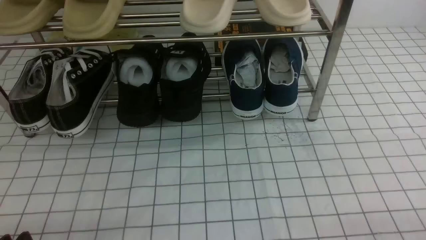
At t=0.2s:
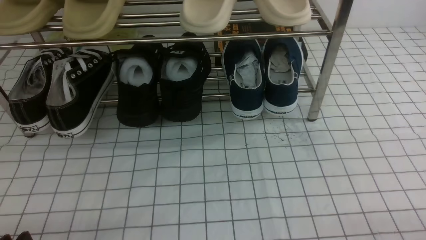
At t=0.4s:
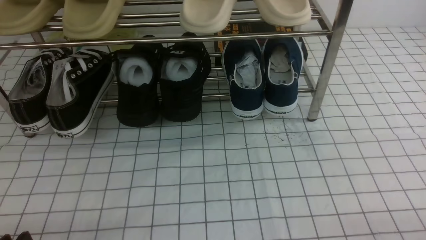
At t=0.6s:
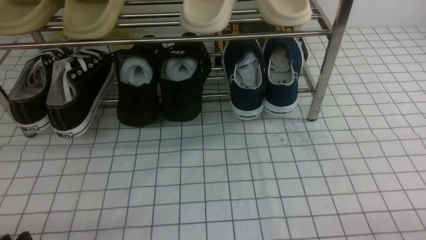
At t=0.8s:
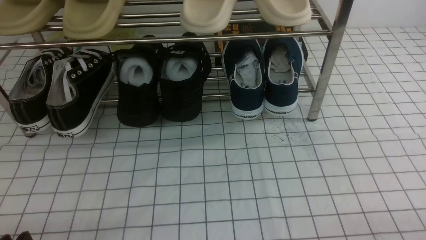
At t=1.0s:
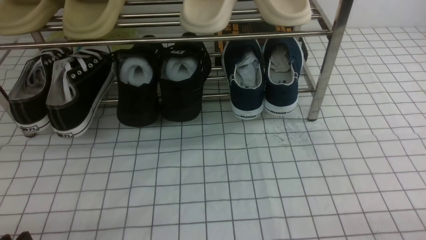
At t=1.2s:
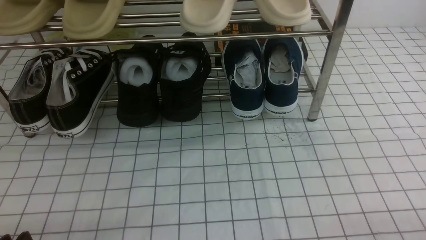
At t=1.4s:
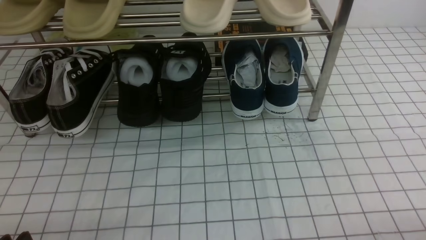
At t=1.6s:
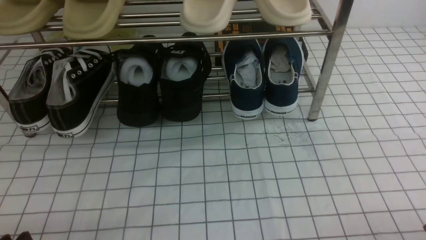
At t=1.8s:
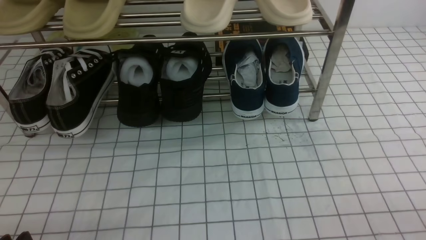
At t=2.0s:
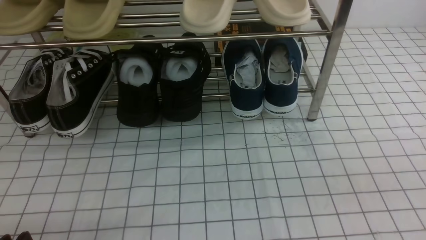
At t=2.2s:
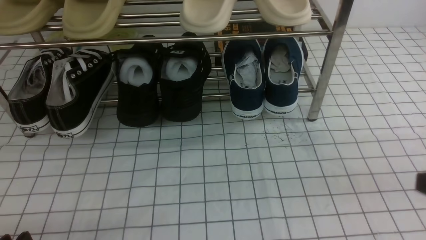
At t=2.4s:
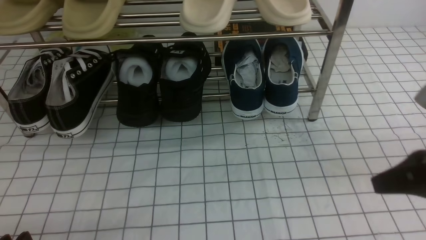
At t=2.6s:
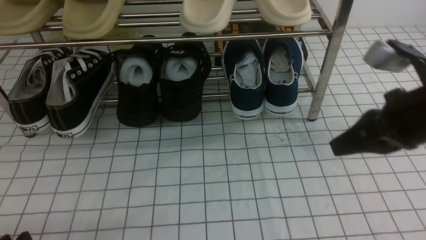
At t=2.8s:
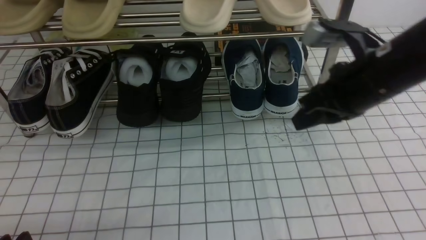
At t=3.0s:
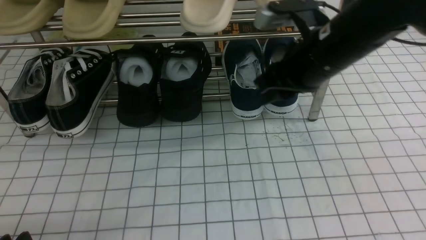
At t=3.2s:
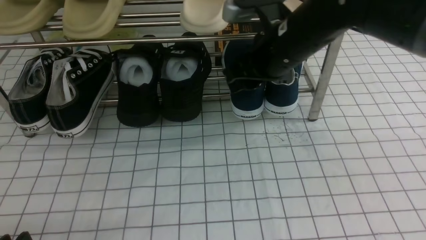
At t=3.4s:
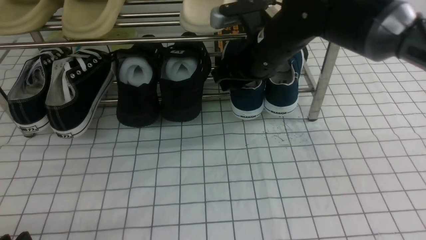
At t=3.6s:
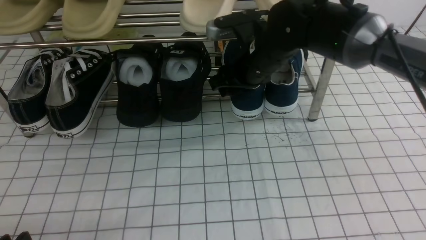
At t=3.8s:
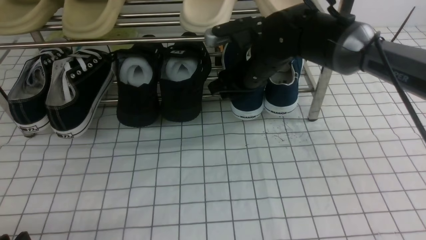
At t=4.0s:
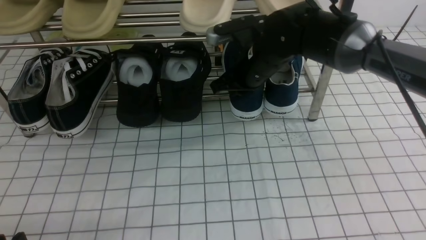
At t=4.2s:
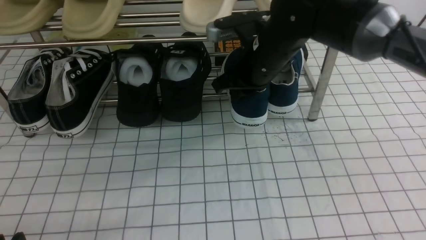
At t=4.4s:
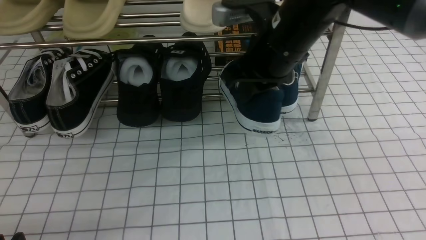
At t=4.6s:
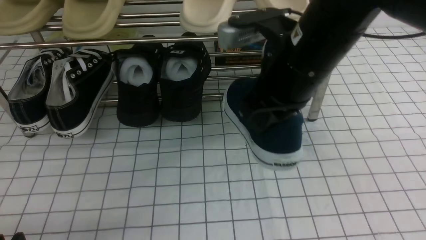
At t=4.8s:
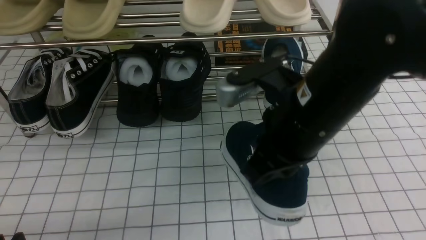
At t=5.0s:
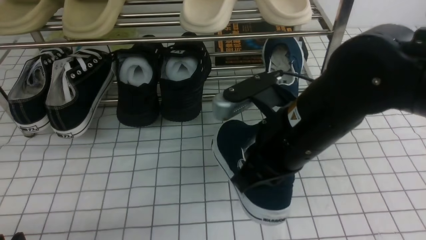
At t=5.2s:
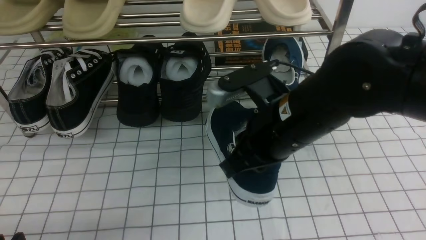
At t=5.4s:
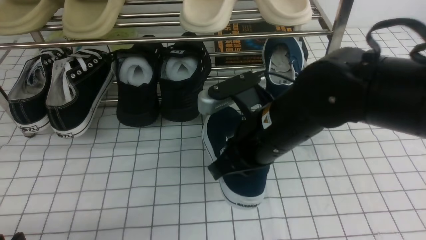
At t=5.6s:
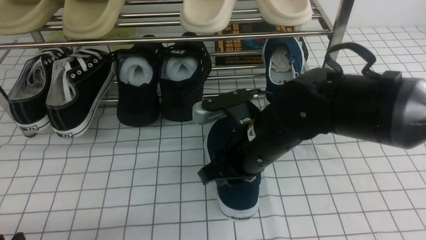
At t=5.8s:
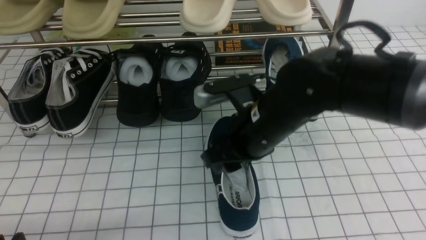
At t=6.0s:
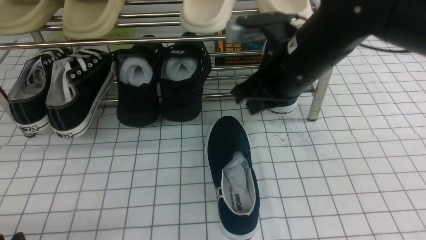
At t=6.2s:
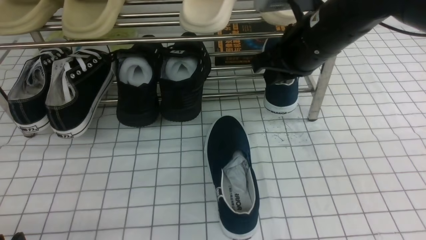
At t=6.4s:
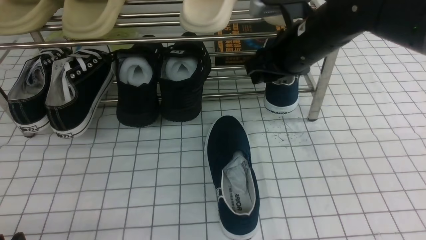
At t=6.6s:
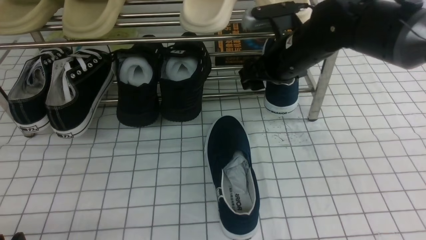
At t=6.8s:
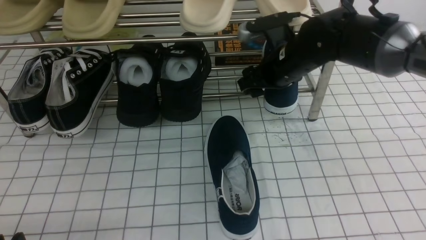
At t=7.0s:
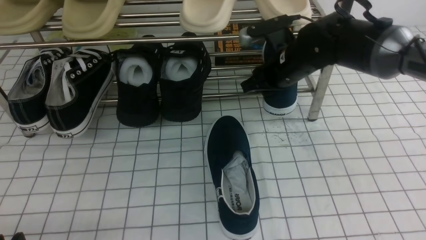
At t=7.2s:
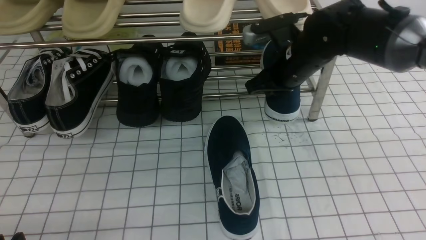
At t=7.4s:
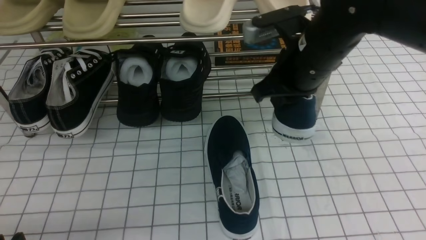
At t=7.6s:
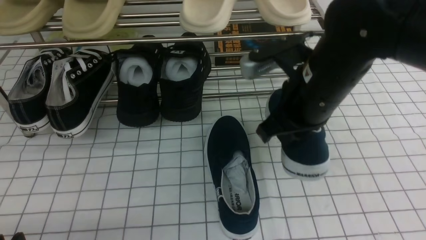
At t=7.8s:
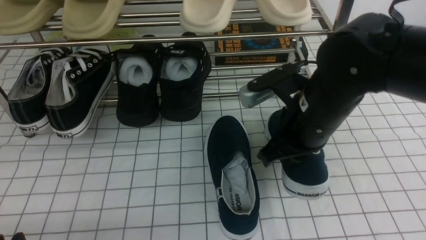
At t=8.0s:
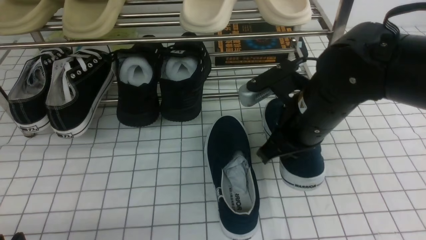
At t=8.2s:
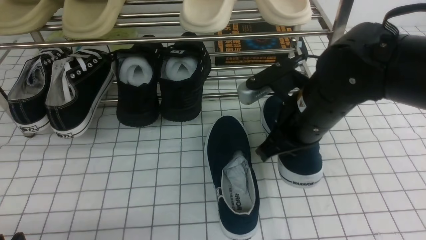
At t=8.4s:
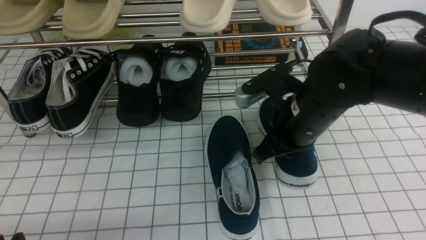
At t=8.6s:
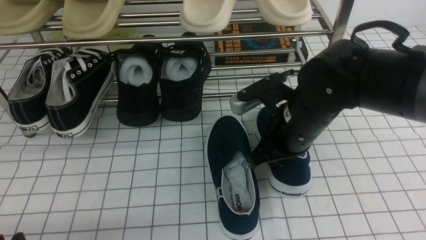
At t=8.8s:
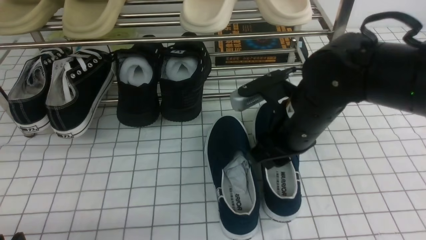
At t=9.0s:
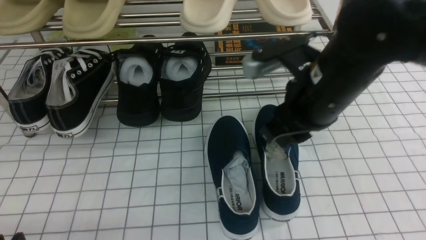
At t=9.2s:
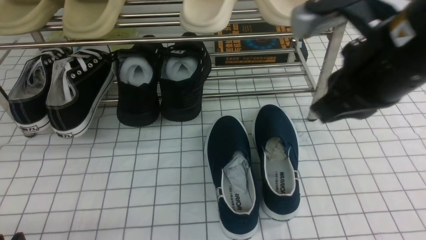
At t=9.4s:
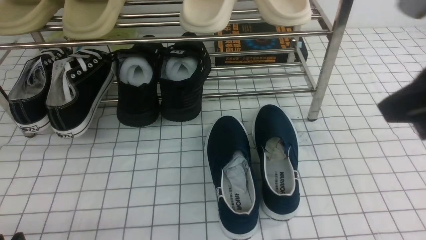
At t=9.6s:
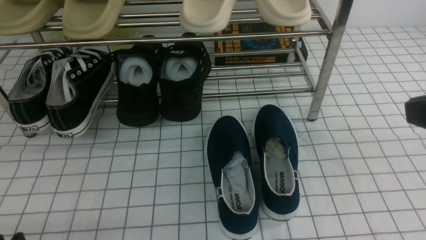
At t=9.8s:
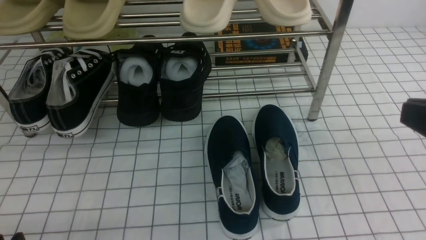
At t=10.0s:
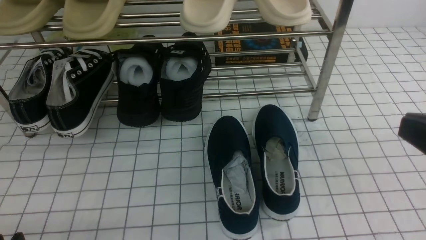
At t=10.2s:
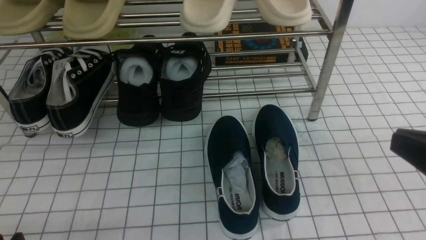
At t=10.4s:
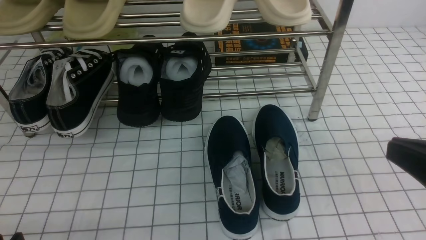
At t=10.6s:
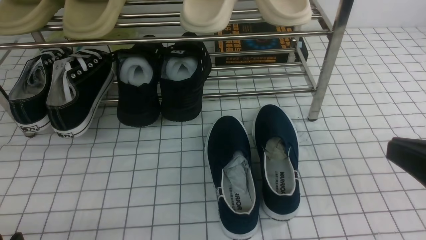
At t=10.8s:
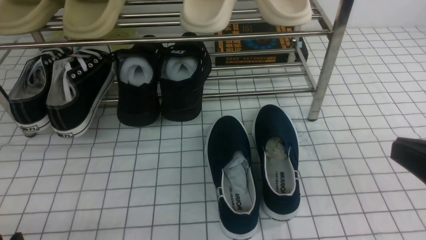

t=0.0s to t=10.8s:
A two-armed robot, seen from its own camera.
Step, t=0.0s to t=3.8s: use the right arm to clamp a shoe on the right side of the shoe rack.
Step, t=4.0s to t=5.8s: use the right arm to take out the clamped shoe from the shoe rack and put it down.
Step, t=6.0s to t=7.0s: use the right arm to clamp a shoe on the right side of the shoe rack.
Step, t=7.2s to t=9.0s: use the right arm to take out the clamped shoe from the shoe rack and put it down.
t=1.6s to t=3.0s: The right gripper goes about 35 cm forward, to the left and upward, and closes, then opens again.
t=3.0s to t=4.6s: The right gripper goes roughly 5 cm backward, and closes.
t=4.6s to t=6.2s: The right gripper travels forward by some 10 cm.
t=6.2s to t=7.8s: The right gripper moves backward, about 10 cm, and opens, then closes once more.
t=7.8s to t=9.2s: The right gripper moves upward, backward and to the right, approximately 15 cm, and opens and closes again.
t=9.2s to t=10.8s: The right gripper travels backward, to the right and downward by approximately 15 cm.

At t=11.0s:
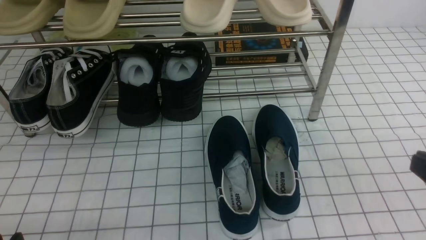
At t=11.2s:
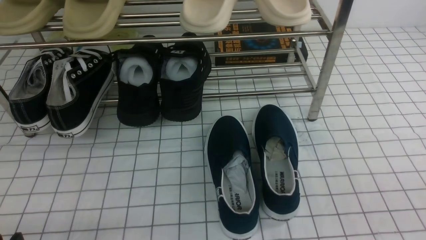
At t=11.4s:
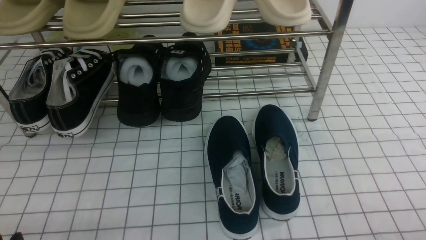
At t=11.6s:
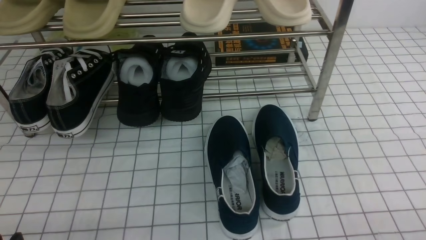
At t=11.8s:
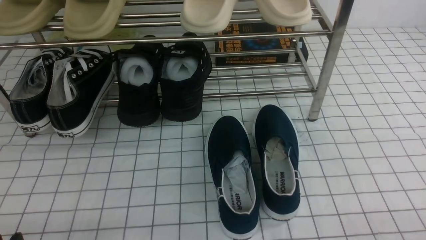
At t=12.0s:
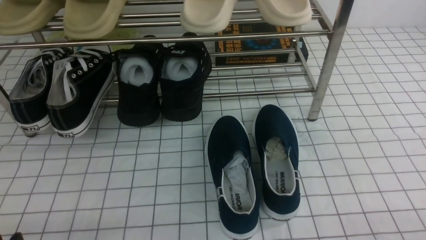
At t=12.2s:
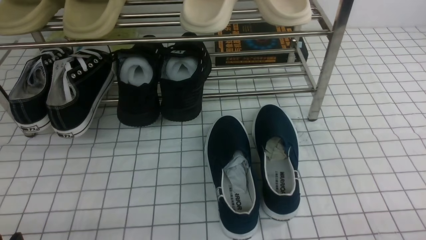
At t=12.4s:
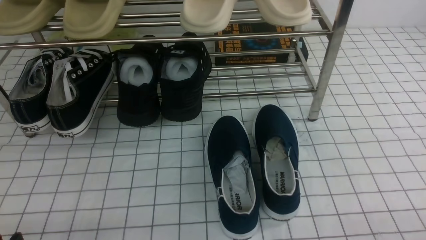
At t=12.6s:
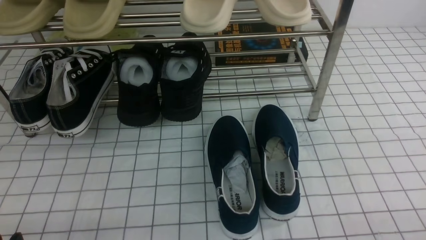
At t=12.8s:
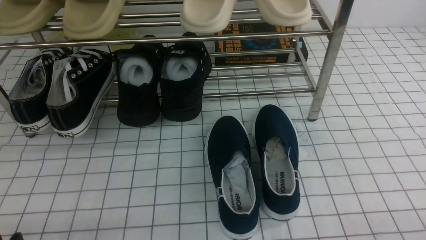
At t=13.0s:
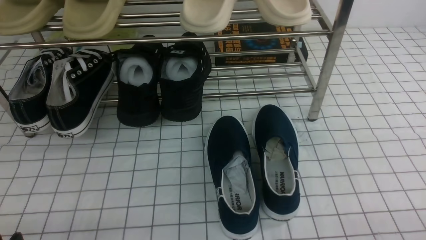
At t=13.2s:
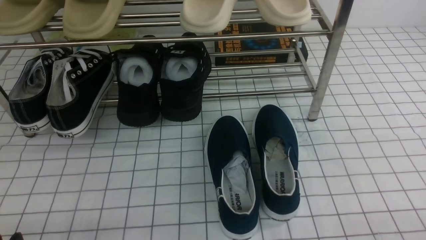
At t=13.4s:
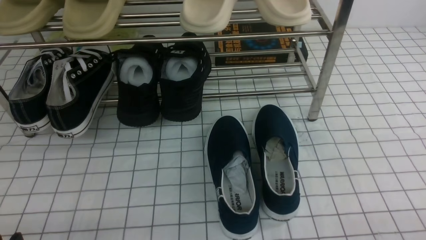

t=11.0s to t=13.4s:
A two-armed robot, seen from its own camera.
t=12.2s to t=13.4s: Both grippers stay about where they are.

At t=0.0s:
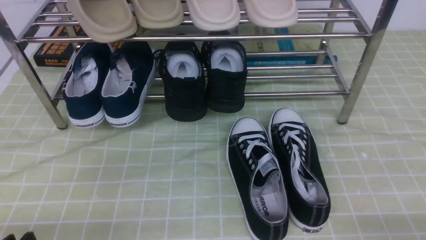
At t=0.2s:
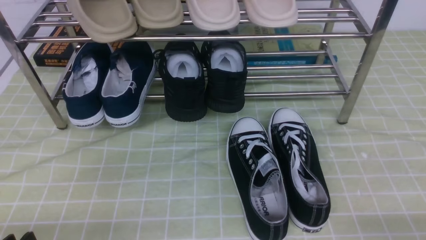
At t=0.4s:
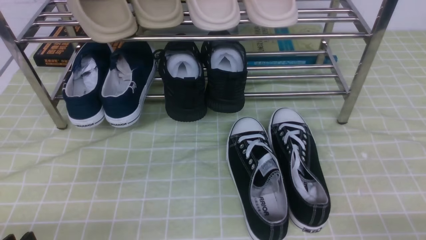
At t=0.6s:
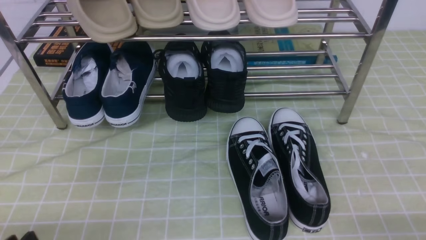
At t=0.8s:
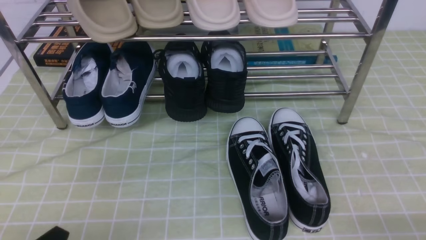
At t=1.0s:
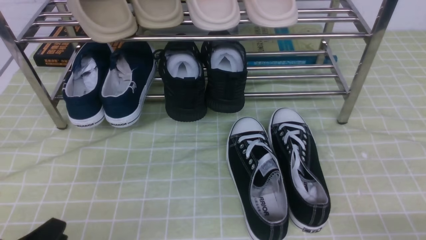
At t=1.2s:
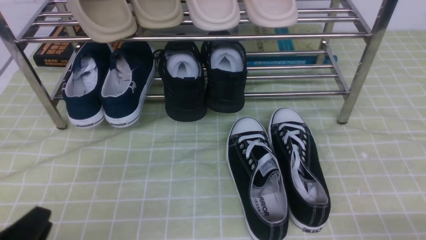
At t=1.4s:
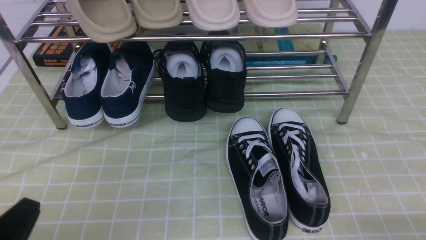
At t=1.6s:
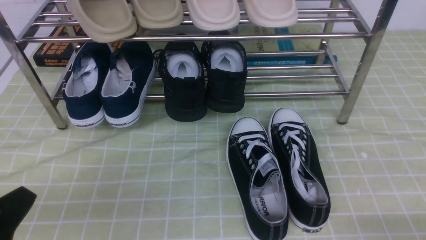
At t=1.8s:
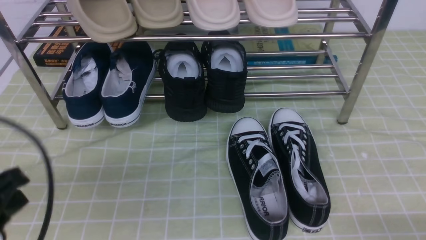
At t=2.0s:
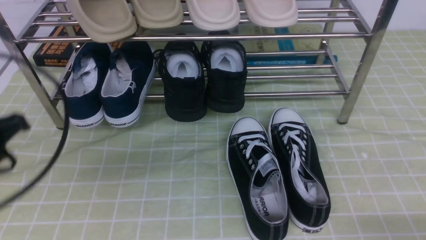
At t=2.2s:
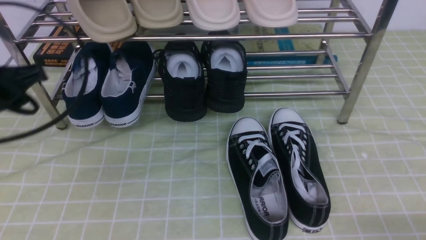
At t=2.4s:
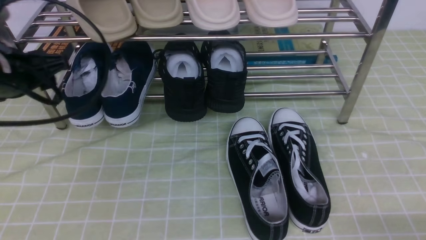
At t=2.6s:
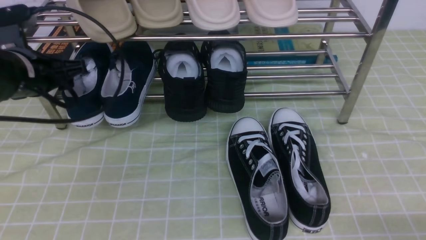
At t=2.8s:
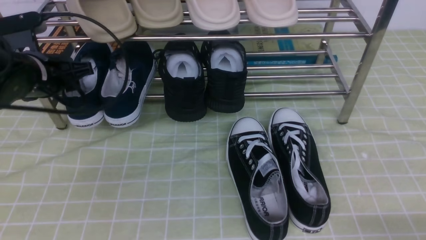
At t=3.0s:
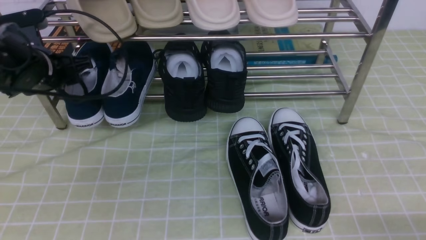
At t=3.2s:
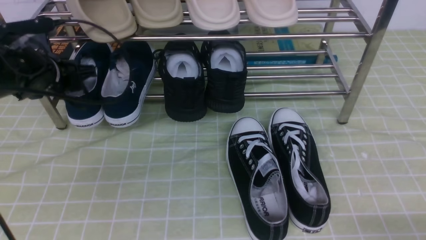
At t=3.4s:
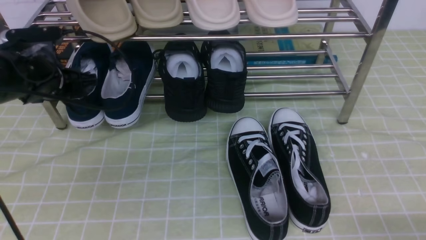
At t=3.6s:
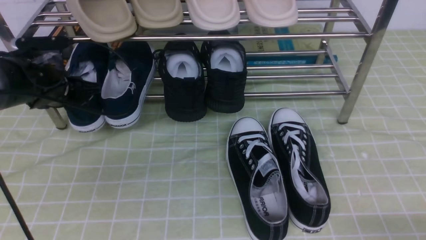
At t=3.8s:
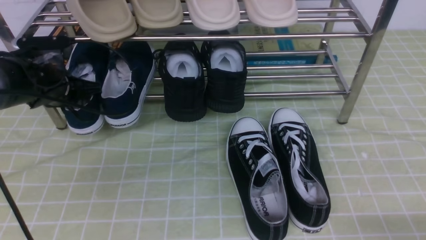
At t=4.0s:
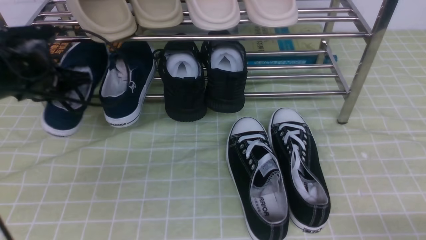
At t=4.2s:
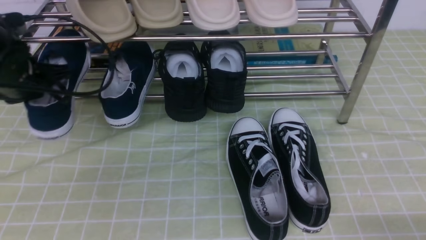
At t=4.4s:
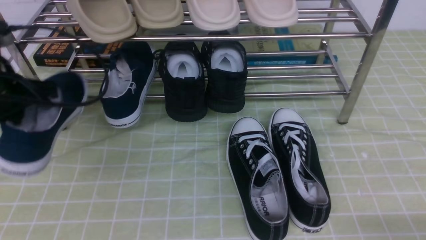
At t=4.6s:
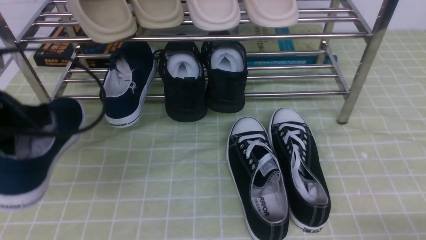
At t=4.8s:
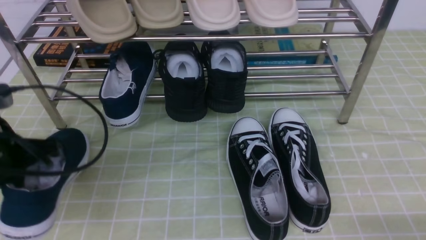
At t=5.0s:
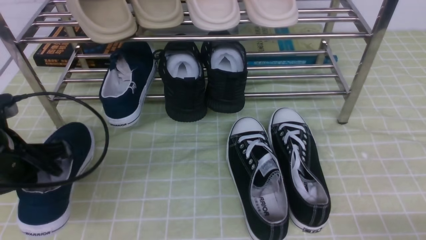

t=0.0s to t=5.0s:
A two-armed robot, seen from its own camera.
Step, t=0.0s to t=3.8s: use the left arm to clamp a shoe on the left side of the shoe rack.
t=0.0s to t=1.6s: The left gripper goes about 10 cm upward, and closes up.
t=1.6s to t=3.4s: The left gripper goes roughly 30 cm forward, and opens its fingers.
t=3.4s to t=5.0s: The left gripper shifts some 15 cm backward, and closes up.